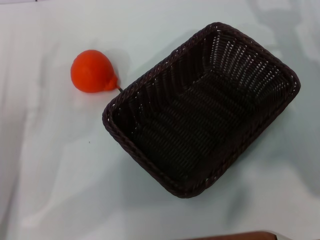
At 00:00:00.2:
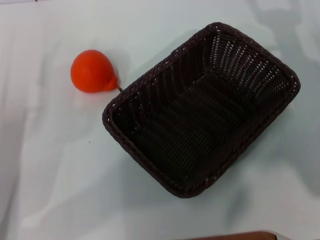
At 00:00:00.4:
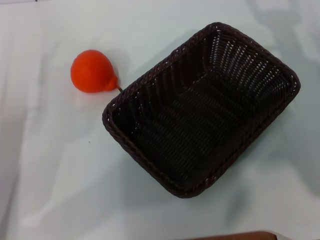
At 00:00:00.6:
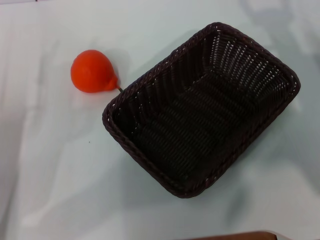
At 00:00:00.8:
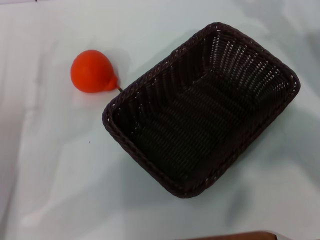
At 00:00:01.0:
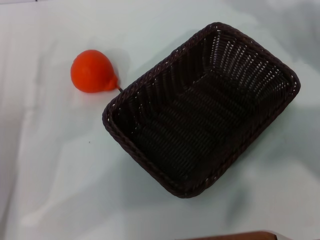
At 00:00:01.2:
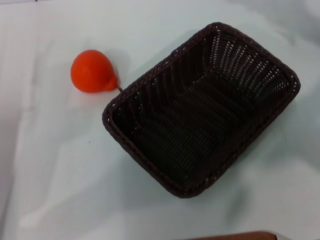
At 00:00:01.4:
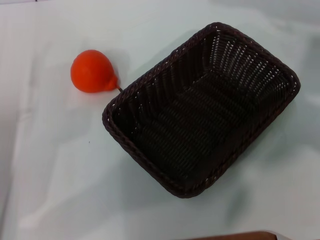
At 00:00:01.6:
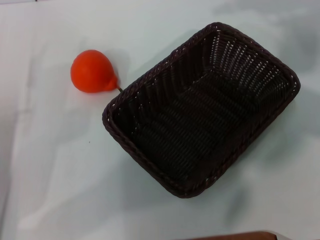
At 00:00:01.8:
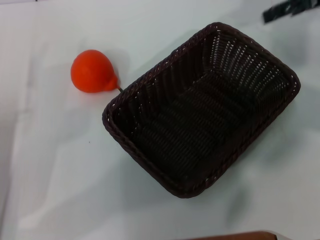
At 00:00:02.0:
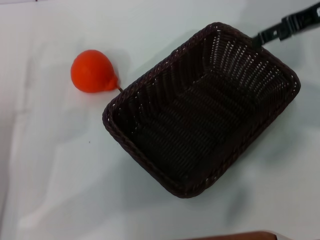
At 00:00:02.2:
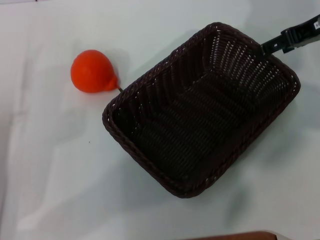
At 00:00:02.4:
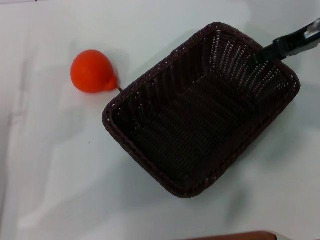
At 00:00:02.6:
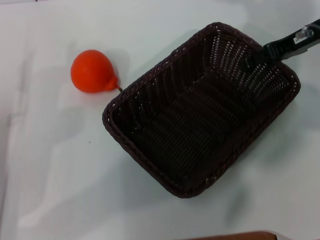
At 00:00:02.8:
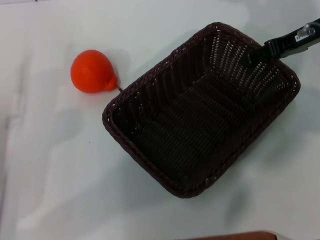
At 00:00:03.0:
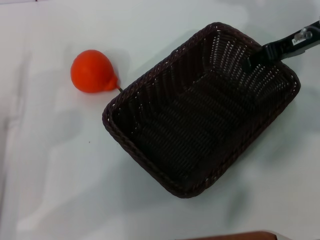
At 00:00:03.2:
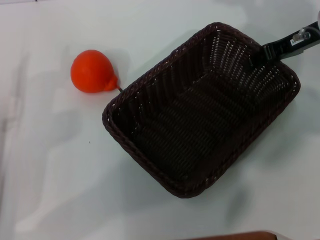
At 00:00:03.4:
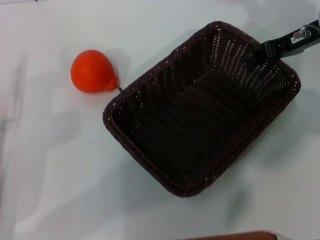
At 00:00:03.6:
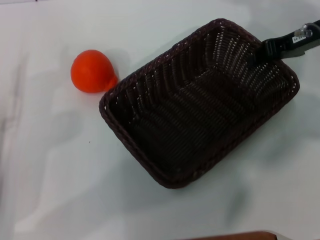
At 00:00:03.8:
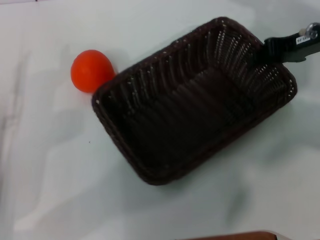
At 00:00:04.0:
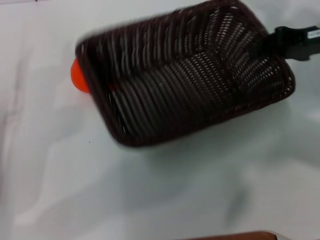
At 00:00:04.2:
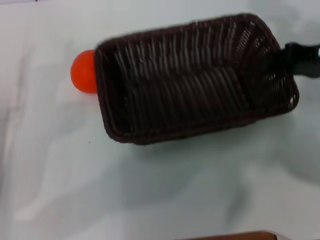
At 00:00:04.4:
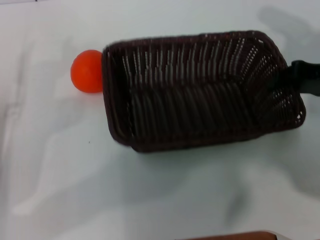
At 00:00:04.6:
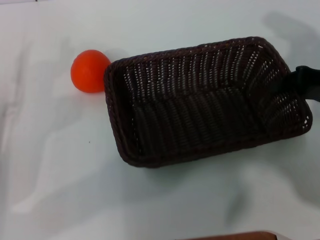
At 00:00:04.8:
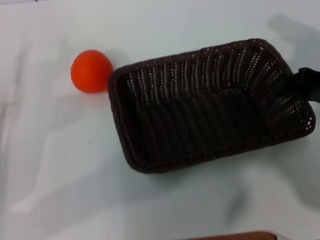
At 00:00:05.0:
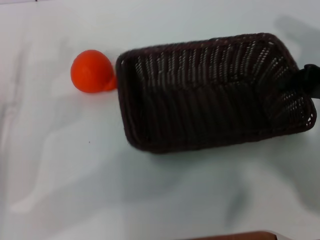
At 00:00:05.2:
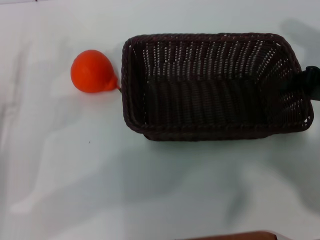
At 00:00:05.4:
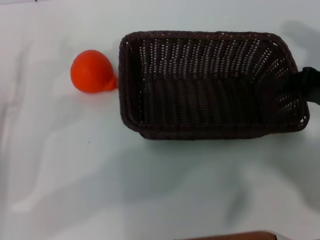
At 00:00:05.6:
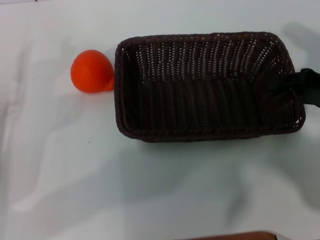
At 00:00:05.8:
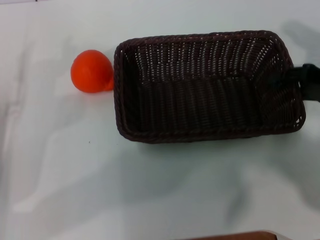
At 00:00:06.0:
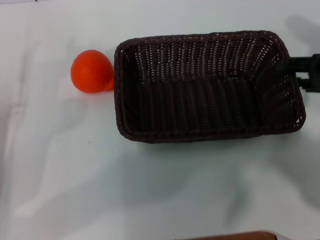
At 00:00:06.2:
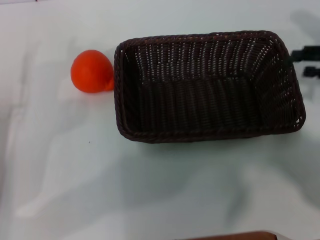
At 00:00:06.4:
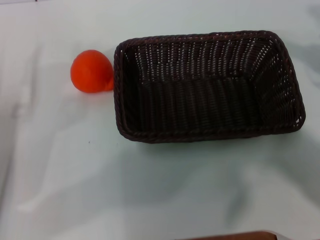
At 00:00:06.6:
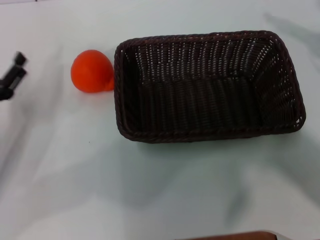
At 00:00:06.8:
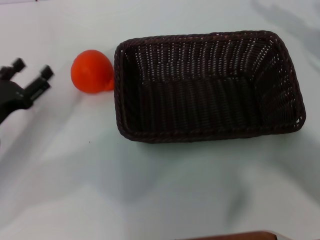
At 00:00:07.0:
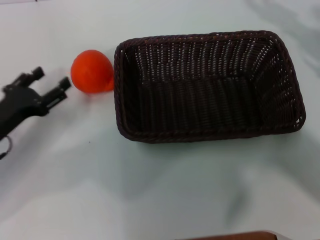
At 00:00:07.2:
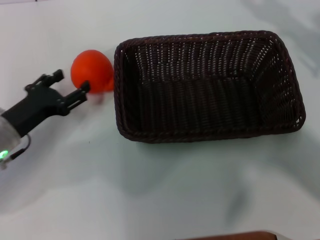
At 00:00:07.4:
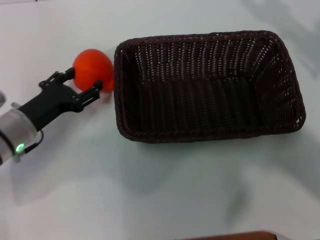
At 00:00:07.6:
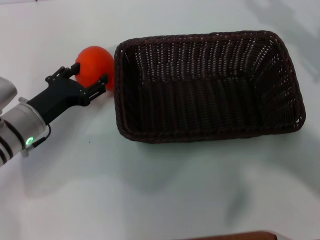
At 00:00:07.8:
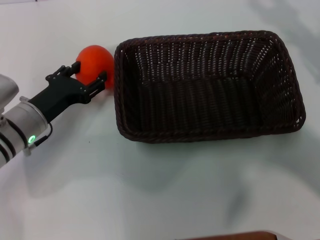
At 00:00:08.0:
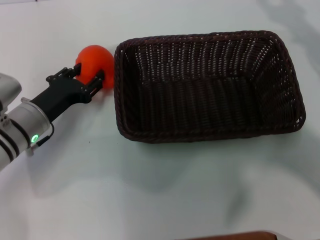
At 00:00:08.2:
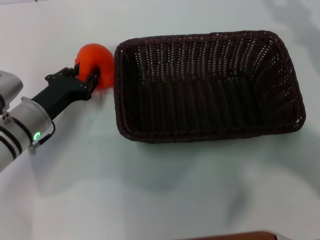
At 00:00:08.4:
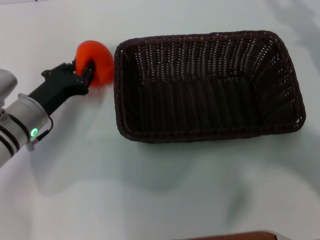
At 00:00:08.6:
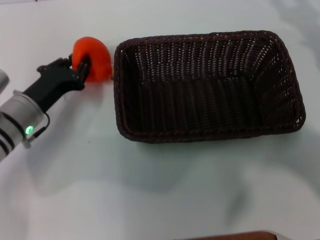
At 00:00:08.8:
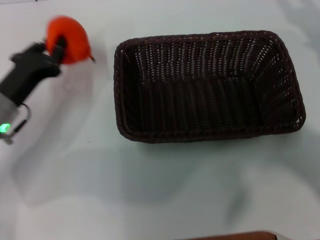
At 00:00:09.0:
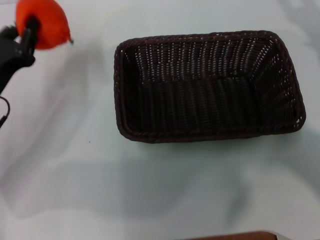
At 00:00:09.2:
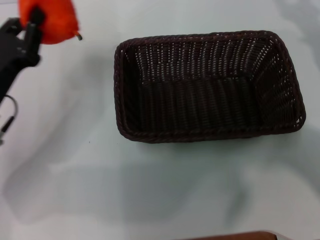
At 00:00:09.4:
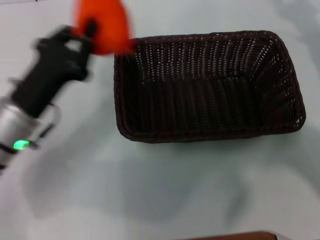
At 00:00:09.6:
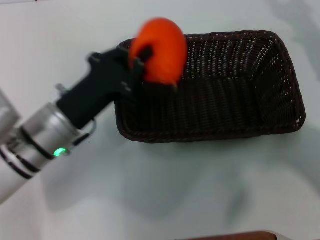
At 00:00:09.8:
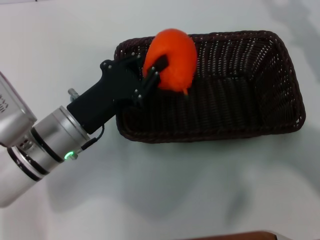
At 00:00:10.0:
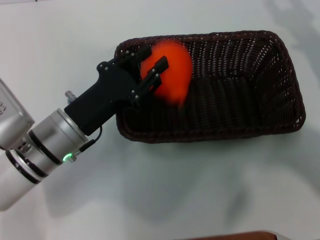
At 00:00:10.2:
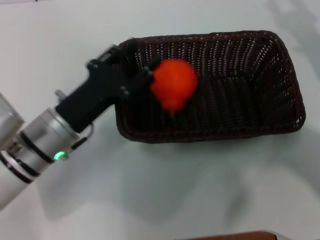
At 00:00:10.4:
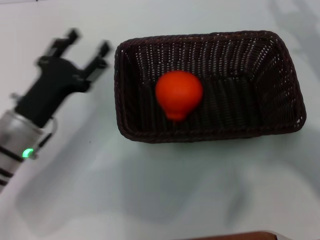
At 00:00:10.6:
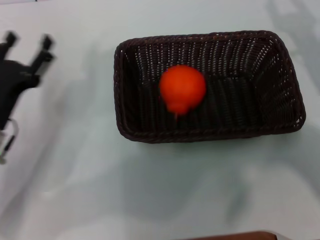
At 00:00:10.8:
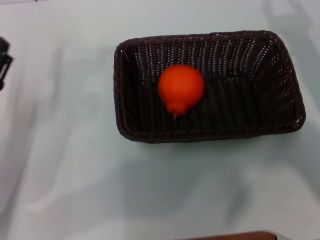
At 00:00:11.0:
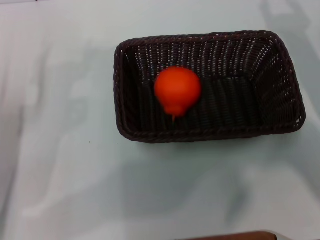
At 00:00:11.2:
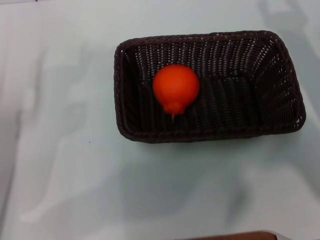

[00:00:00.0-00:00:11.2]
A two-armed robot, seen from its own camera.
Task of the whole recording: the right gripper pick up the black basket and place it horizontally in the middle of the table, the left gripper pick up the orange and place it into the black basket.
Step, 00:00:00.0 to 00:00:03.8: Pick up the dark basket with the right gripper.
Step, 00:00:04.0 to 00:00:06.4: Place the dark basket in the center of view with the right gripper.
Step, 00:00:06.6 to 00:00:08.8: Pick up the orange with the left gripper.
Step, 00:00:09.0 to 00:00:10.2: Place the orange into the dark basket with the left gripper.
00:00:00.0 to 00:00:01.6: The right gripper travels upward and forward by roughly 20 cm.
00:00:01.6 to 00:00:03.2: The right gripper shifts some 10 cm downward, and closes its fingers.
00:00:03.2 to 00:00:04.8: The right gripper is displaced backward by some 10 cm, and closes.
00:00:04.8 to 00:00:06.4: The right gripper goes roughly 5 cm to the right, and opens its fingers.
00:00:06.4 to 00:00:08.0: The left gripper travels to the right and forward by approximately 10 cm.
00:00:08.0 to 00:00:09.6: The left gripper goes roughly 5 cm to the right and upward, and closes.
00:00:09.6 to 00:00:11.2: The right gripper changes place by roughly 5 cm; the left gripper travels to the left by approximately 10 cm, and opens up.
